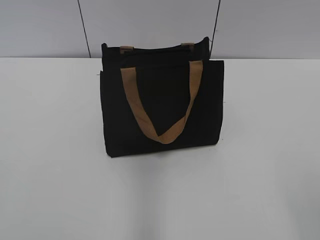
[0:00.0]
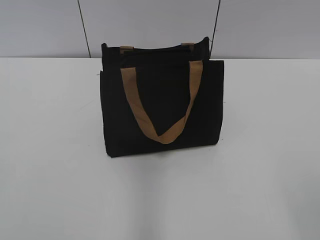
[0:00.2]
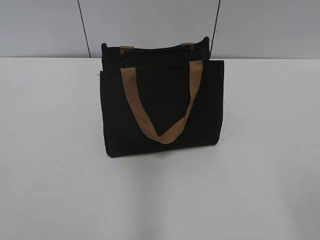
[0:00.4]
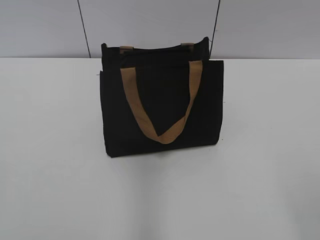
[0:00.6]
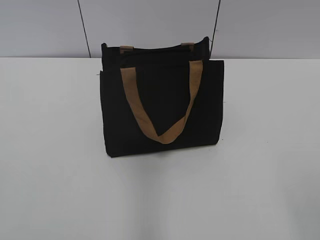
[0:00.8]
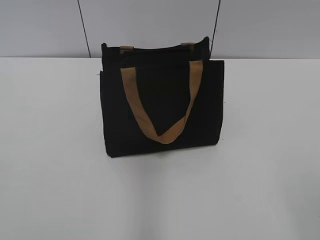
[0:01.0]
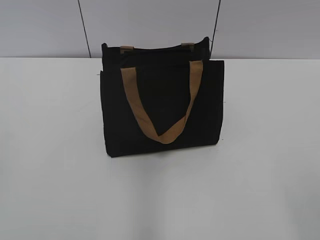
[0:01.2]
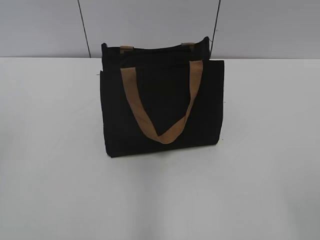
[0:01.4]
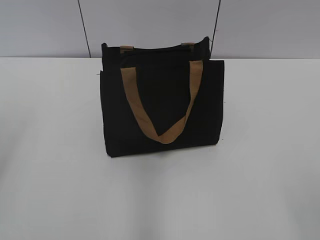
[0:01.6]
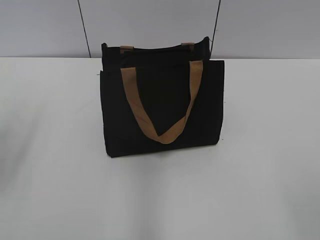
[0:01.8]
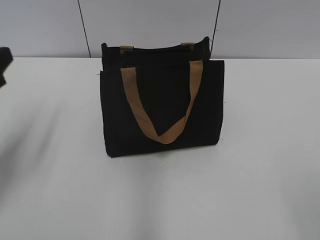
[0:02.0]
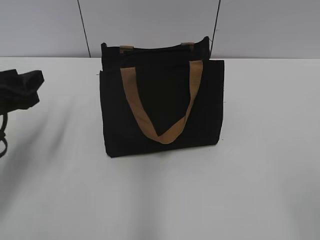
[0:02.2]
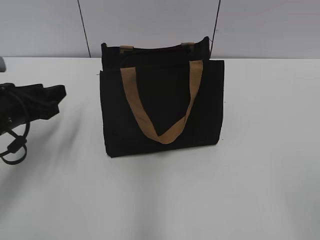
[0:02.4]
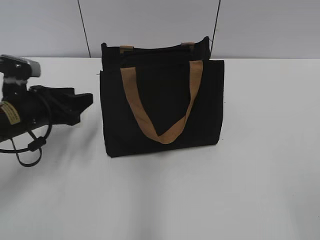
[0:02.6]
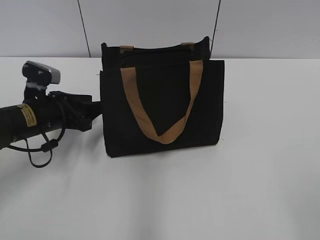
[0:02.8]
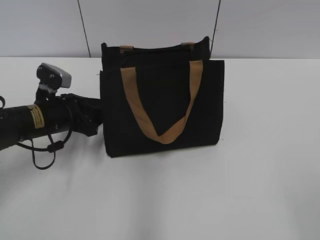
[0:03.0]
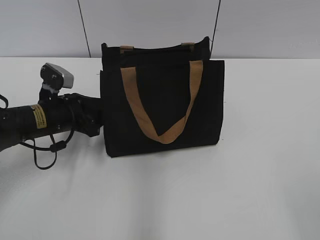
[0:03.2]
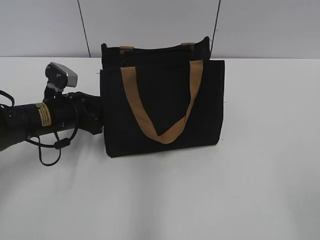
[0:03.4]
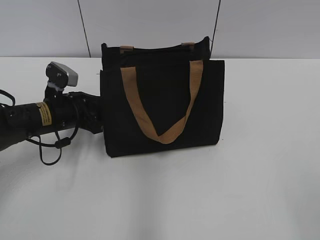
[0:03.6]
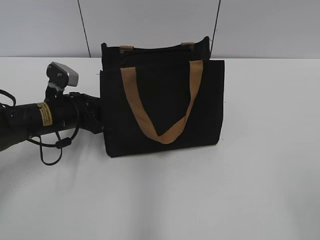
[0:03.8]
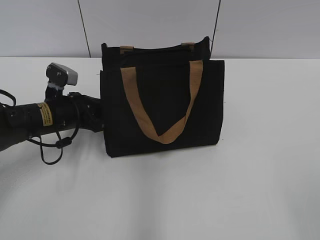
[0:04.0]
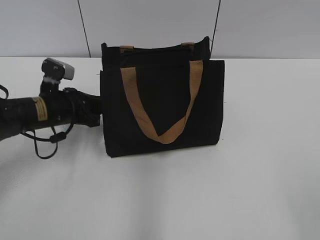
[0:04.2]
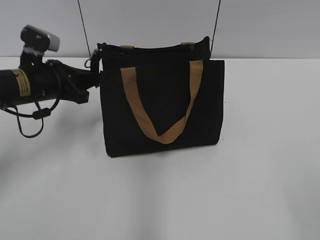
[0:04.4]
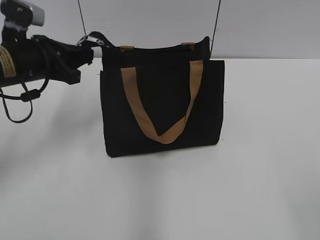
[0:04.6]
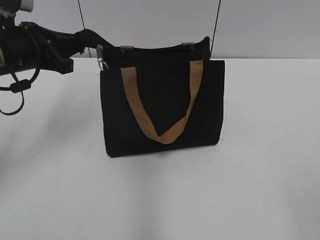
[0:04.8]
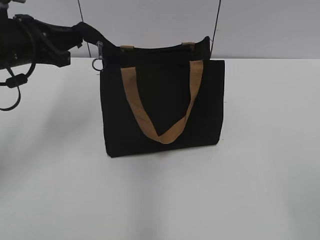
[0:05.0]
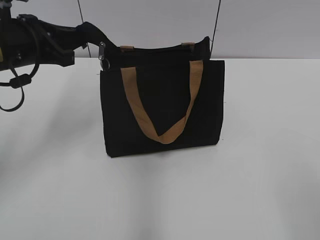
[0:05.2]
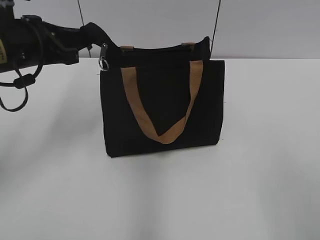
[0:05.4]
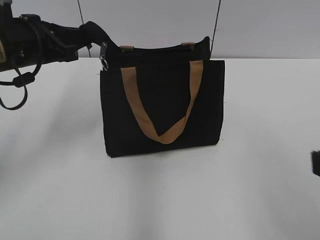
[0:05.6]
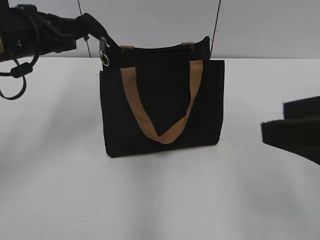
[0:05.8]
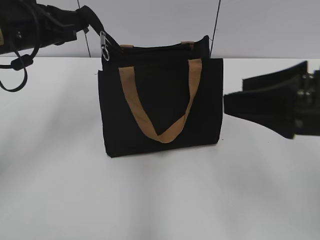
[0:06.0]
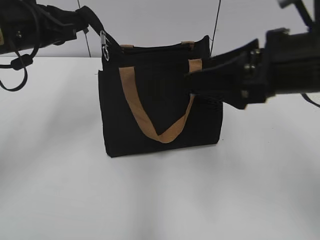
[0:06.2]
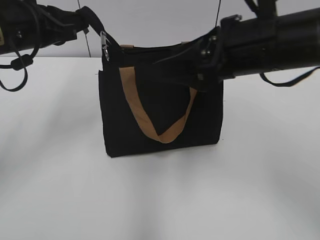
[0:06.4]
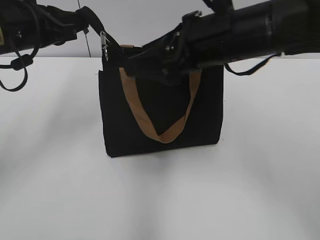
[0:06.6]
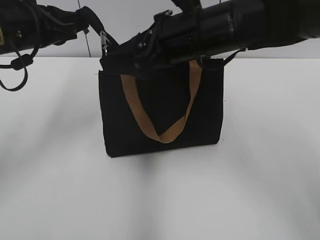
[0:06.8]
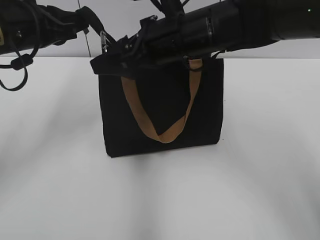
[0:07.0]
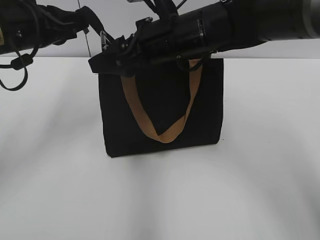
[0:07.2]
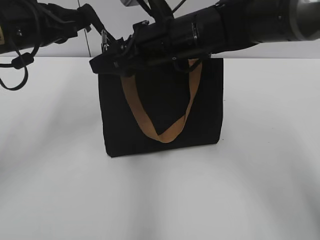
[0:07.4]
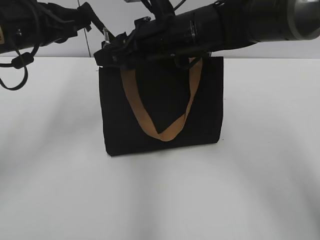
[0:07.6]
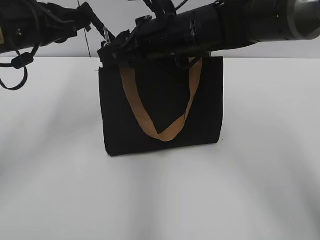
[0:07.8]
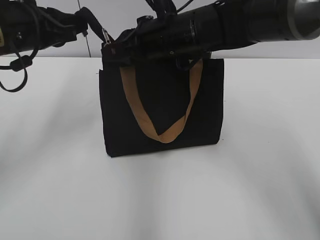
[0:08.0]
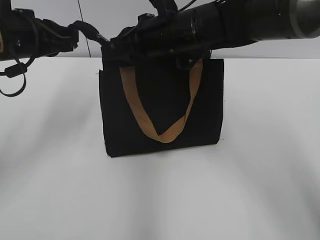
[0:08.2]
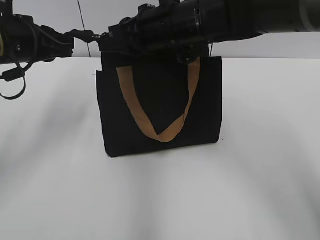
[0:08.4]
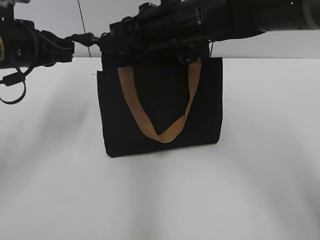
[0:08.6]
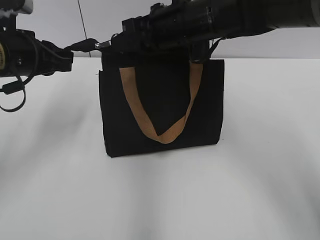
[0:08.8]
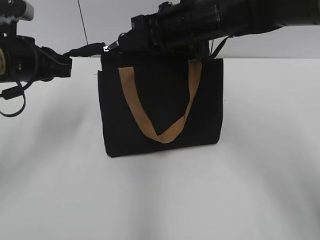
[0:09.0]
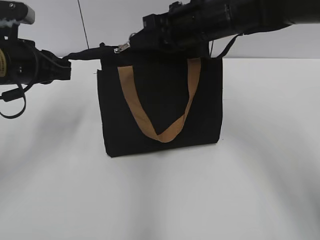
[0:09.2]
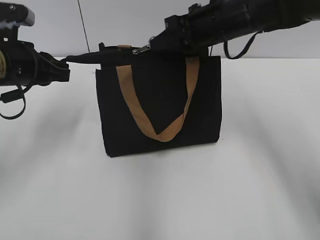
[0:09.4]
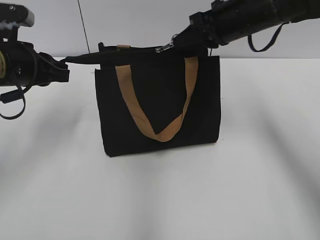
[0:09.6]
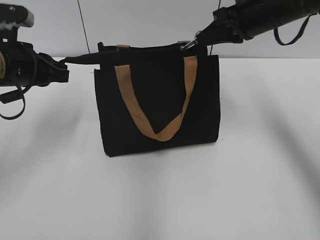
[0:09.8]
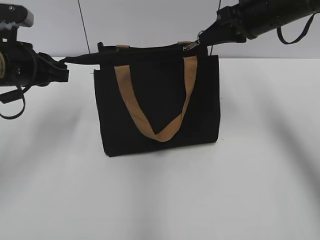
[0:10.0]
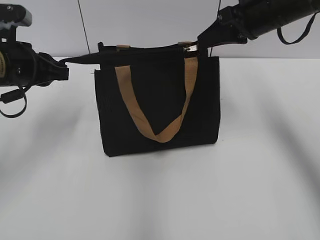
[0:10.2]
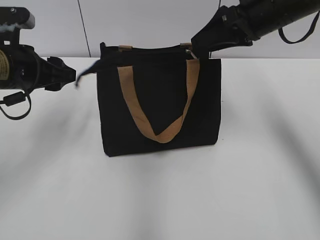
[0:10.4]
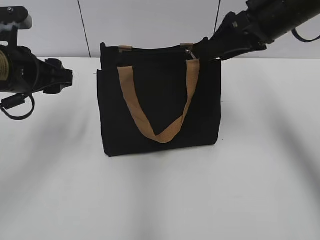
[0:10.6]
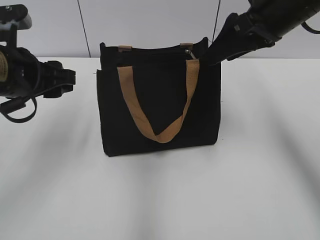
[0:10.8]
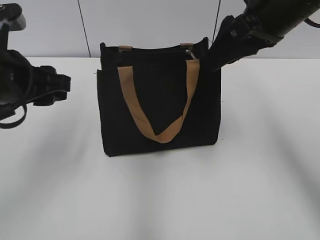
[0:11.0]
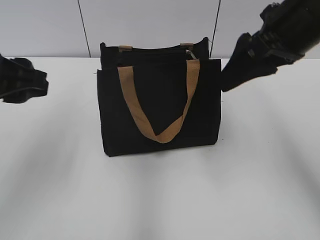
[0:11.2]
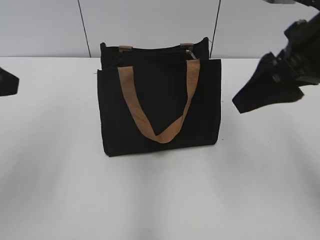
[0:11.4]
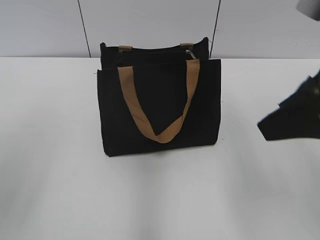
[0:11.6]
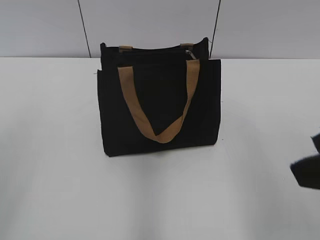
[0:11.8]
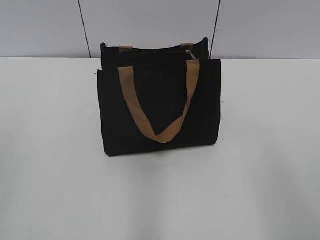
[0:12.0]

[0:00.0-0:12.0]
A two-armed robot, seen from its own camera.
Step, 0:00.0 to 0:10.0: Zip up the bag with your right hand.
0:01.6 to 0:03.0: The left gripper moves downward, forward and to the right, about 30 cm.
0:03.0 to 0:04.4: The left gripper closes.
0:04.4 to 0:06.0: The right gripper travels forward by some 20 cm; the left gripper shifts approximately 10 cm upward.
0:06.0 to 0:07.6: The right gripper is displaced forward and to the left by about 25 cm.
0:07.6 to 0:09.0: The right gripper closes its fingers.
0:09.0 to 0:10.4: The right gripper shifts about 10 cm to the right, and opens up, while the left gripper opens its fingers.
0:10.4 to 0:12.0: The left gripper moves backward and upward, approximately 25 cm, while the right gripper shifts approximately 30 cm backward.

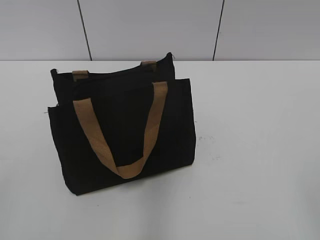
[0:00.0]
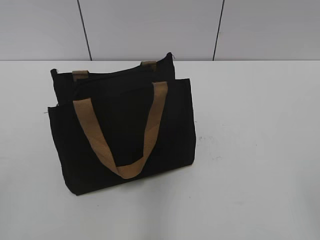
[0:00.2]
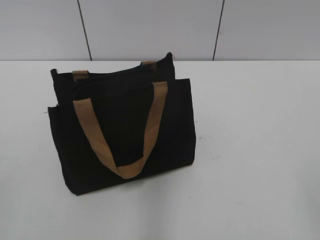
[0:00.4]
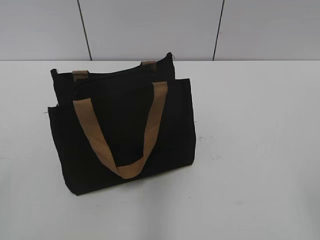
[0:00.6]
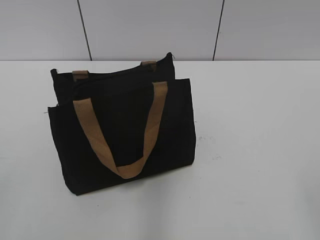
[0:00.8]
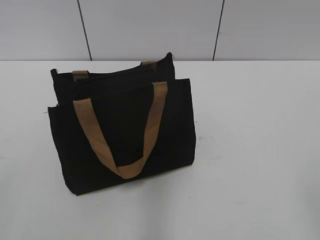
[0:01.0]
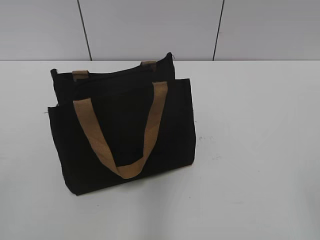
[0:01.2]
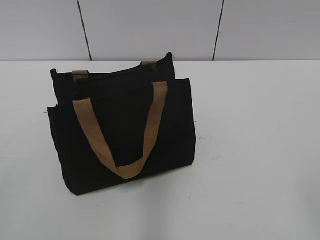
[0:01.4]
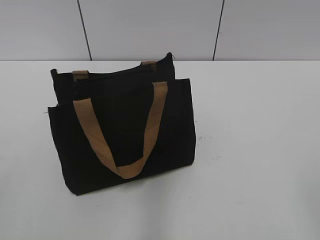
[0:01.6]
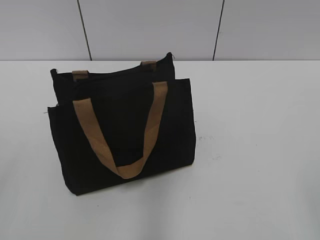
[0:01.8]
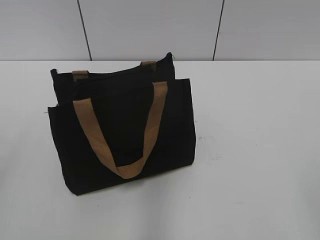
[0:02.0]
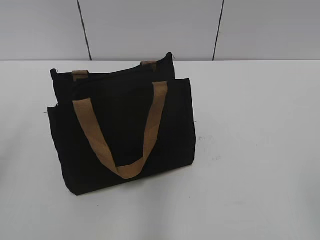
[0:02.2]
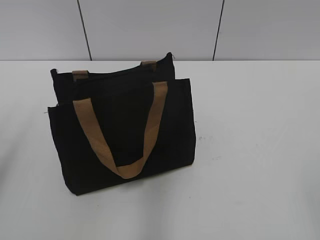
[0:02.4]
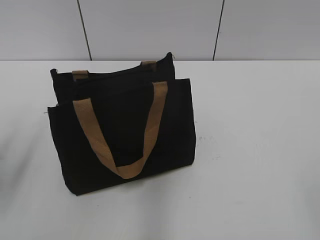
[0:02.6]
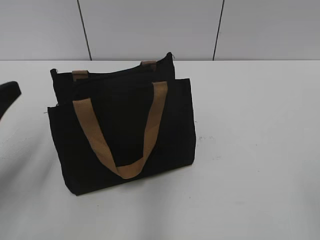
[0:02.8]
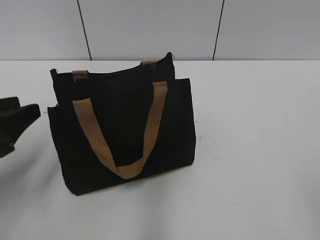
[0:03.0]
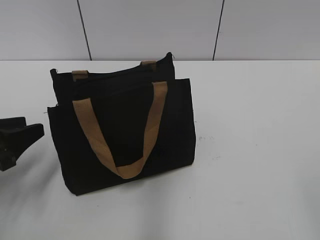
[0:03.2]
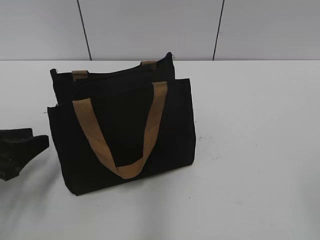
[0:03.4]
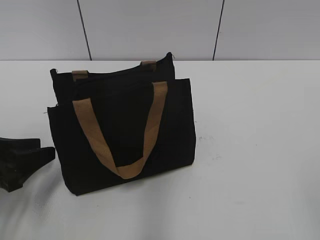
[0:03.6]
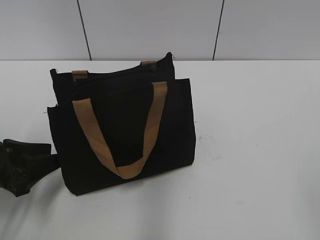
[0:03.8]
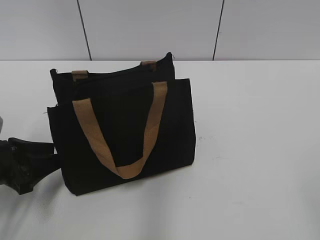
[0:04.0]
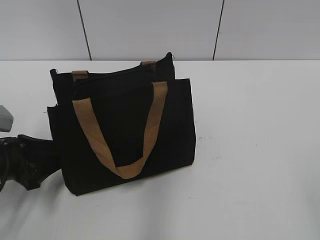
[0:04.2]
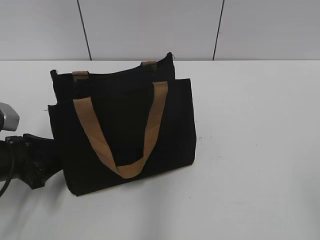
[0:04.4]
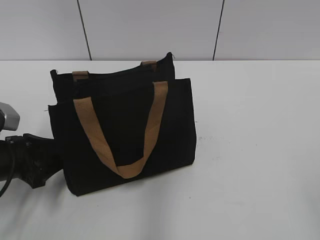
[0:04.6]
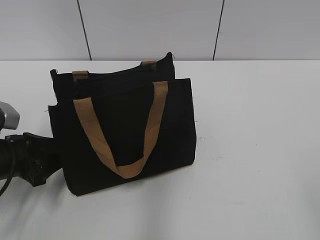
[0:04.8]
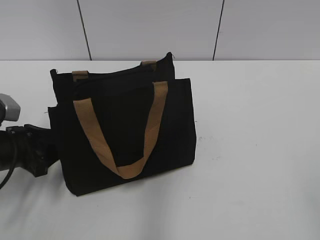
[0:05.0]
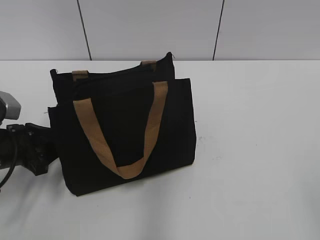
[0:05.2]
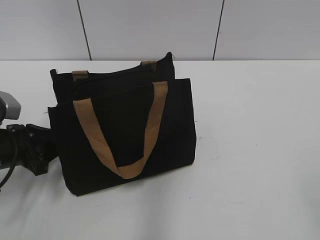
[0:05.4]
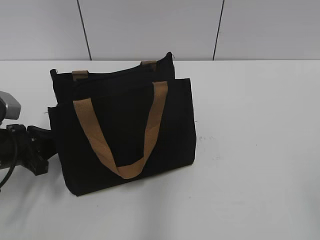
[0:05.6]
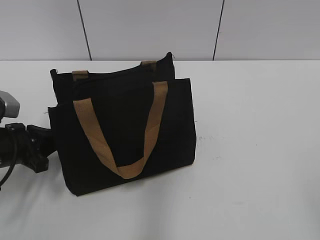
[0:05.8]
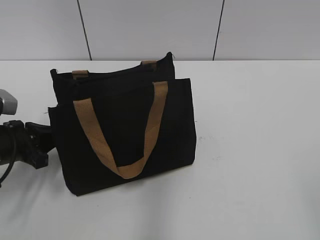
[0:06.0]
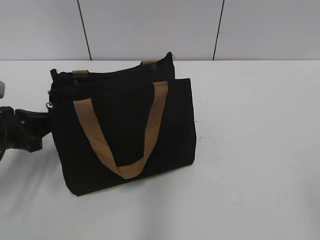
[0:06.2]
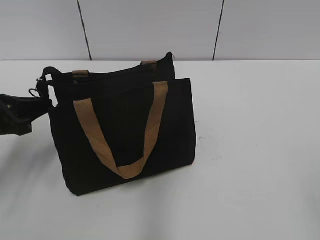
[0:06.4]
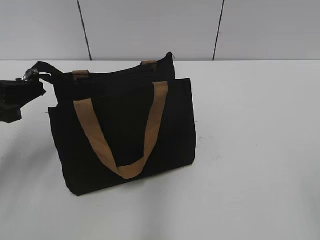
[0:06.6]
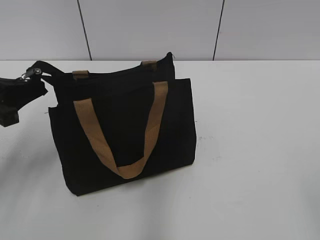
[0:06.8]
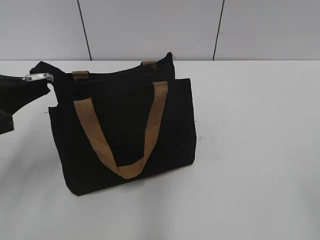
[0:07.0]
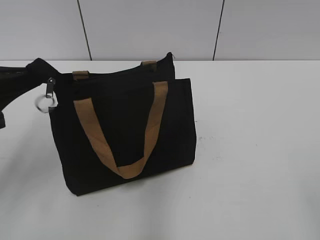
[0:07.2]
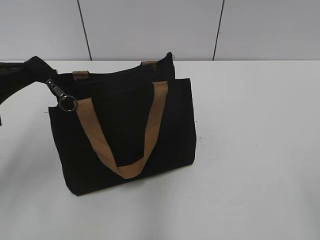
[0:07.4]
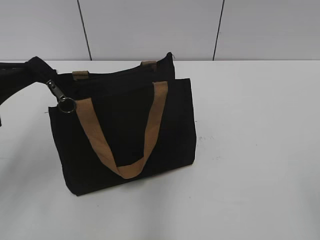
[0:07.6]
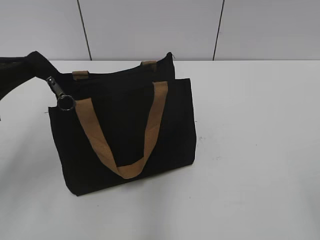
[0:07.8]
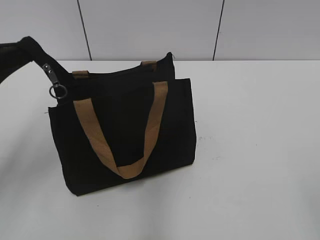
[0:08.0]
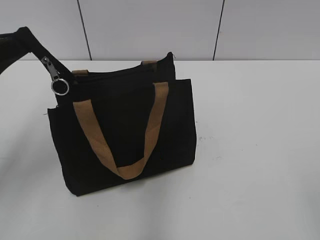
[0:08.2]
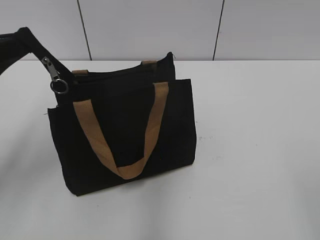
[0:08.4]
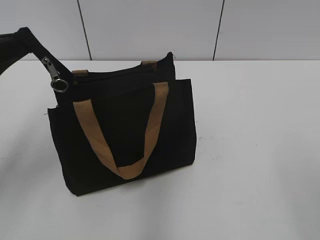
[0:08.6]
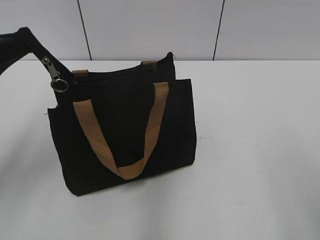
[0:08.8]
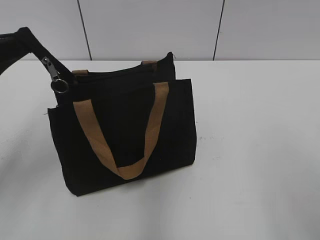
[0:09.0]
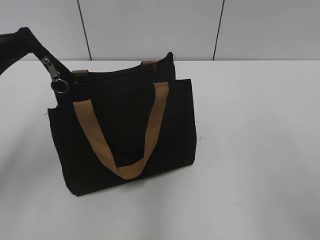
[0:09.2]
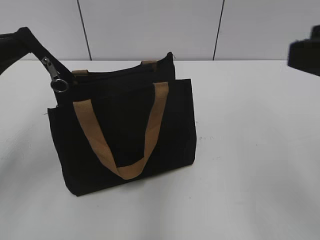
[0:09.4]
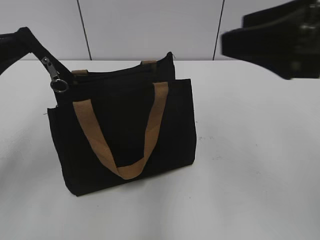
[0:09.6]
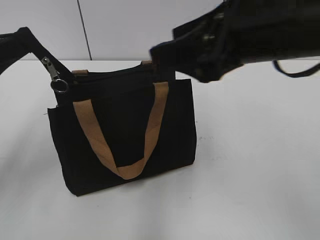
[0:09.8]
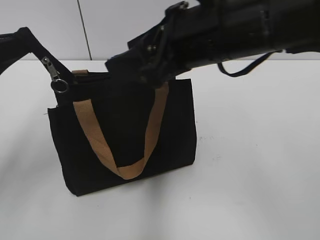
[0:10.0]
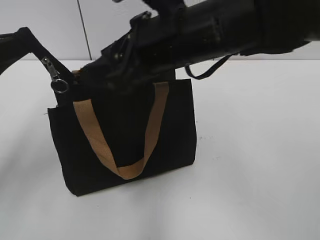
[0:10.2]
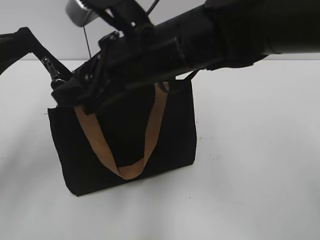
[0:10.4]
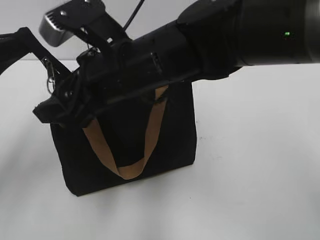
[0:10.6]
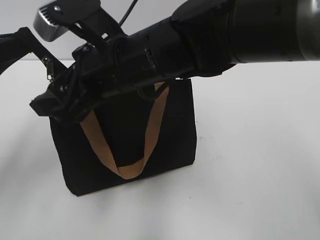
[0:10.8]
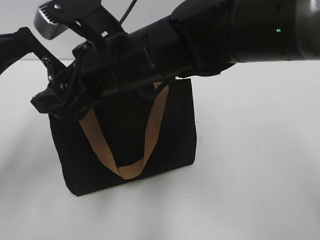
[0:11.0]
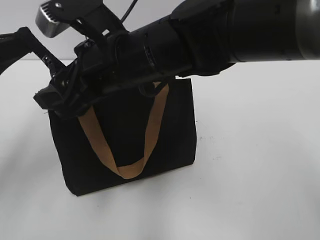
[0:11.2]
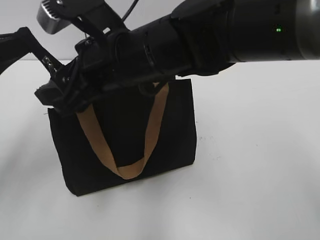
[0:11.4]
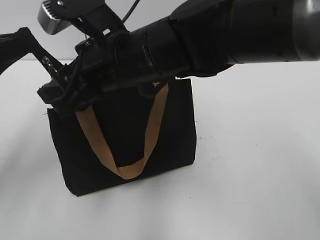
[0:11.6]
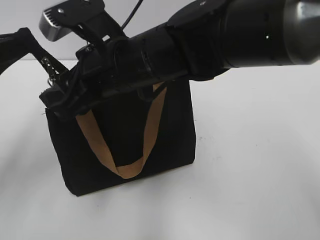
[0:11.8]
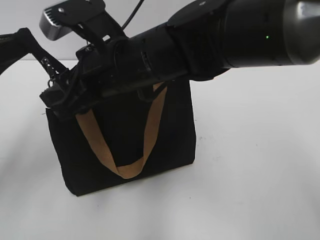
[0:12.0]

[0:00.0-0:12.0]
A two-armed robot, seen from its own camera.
0:01.6 to 0:03.0: The left gripper travels forward and downward by about 20 cm.
0:03.0 to 0:04.4: The left gripper goes about 10 cm downward.
0:04.4 to 0:06.0: The left gripper closes.
0:06.0 to 0:07.6: The left gripper goes approximately 15 cm upward.
0:09.0 to 0:10.4: The right gripper is displaced to the left and forward by approximately 30 cm.
0:10.4 to 0:12.0: The grippers move only a little.
